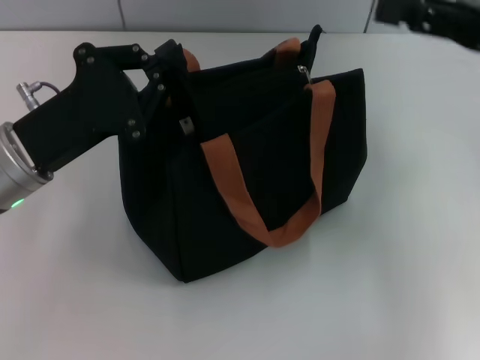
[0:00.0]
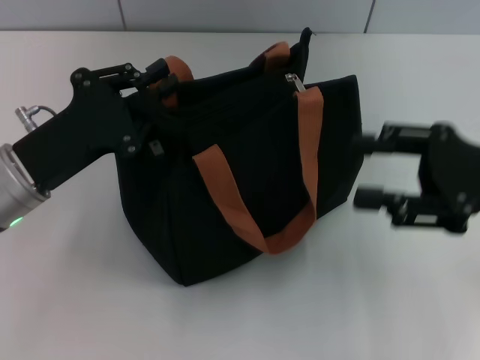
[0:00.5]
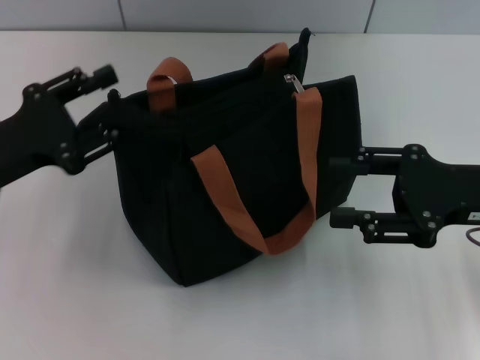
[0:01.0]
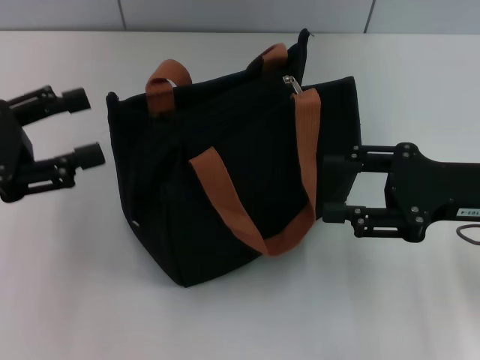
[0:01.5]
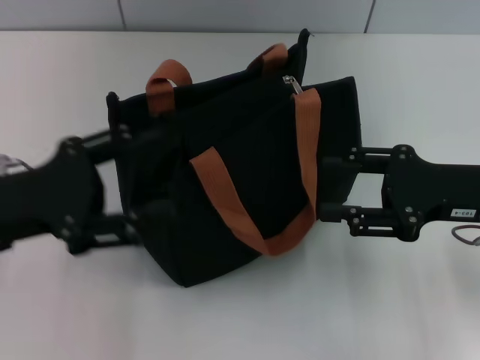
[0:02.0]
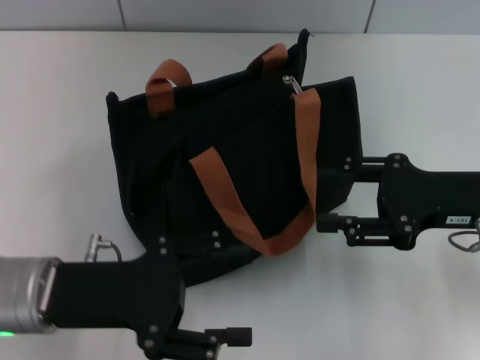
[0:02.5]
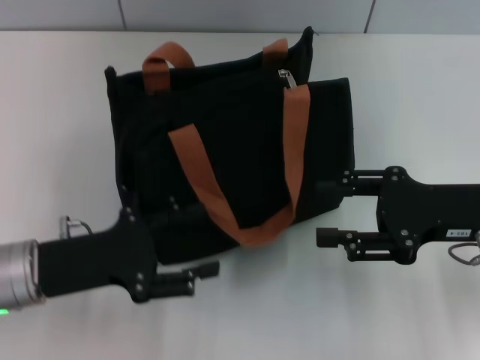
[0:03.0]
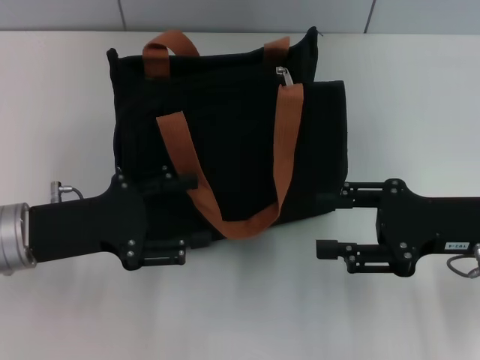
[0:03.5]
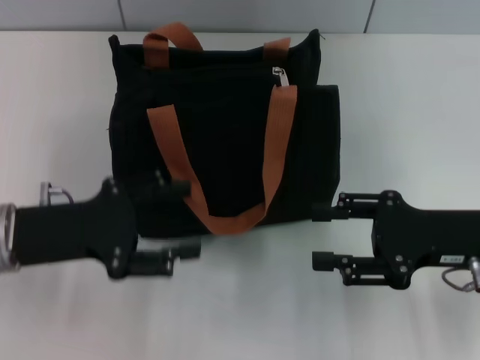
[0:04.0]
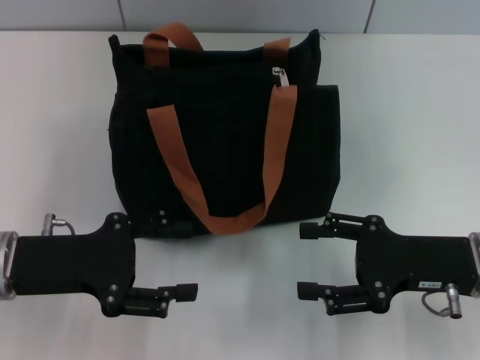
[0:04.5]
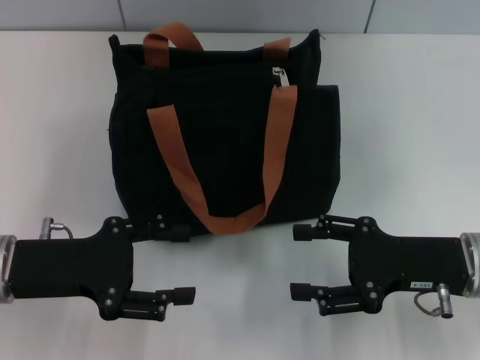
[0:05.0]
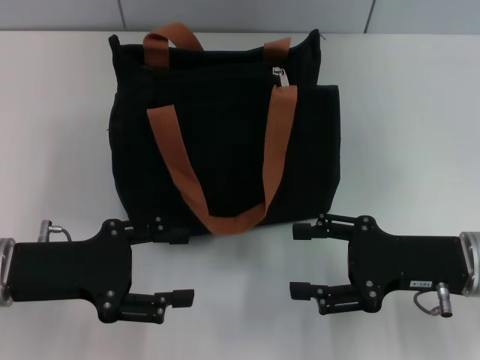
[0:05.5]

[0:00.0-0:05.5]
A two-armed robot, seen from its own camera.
0:00.0 to 0:02.0: The left gripper opens up. The right gripper goes some 10 cm downward, and opens.
0:02.0 to 0:03.5: The left gripper changes place by some 5 cm.

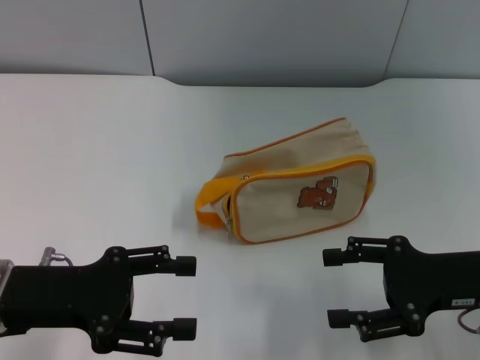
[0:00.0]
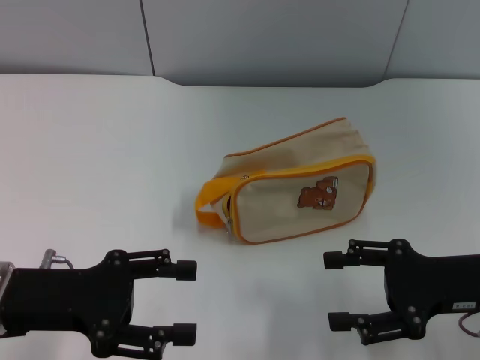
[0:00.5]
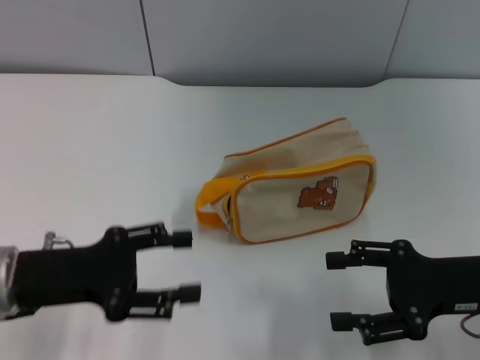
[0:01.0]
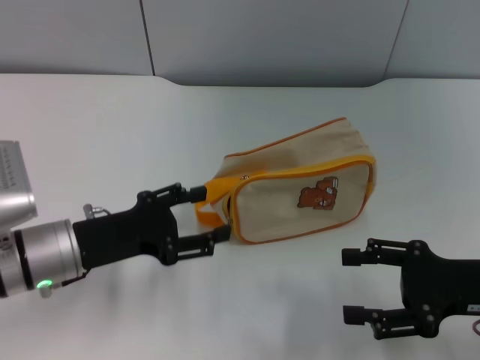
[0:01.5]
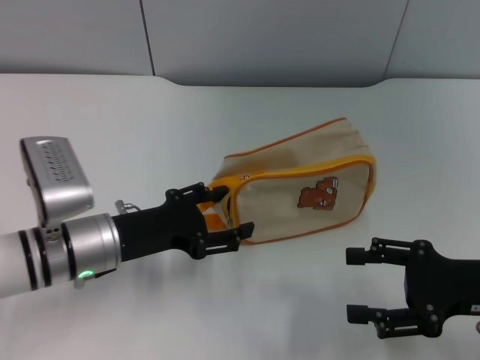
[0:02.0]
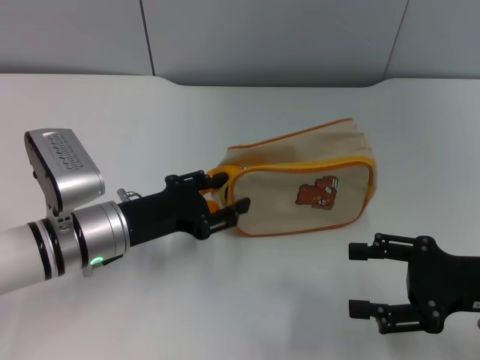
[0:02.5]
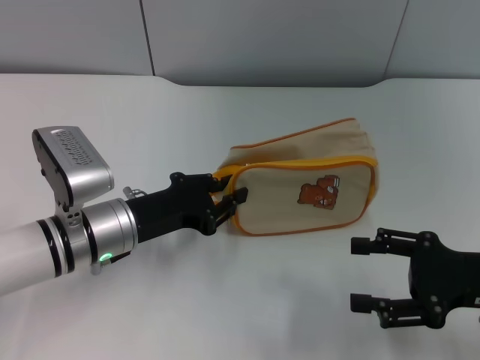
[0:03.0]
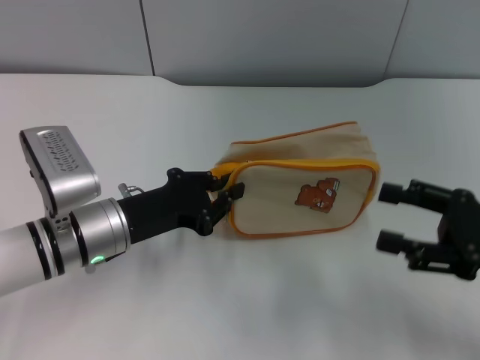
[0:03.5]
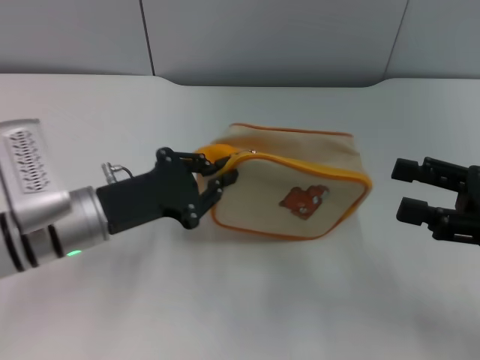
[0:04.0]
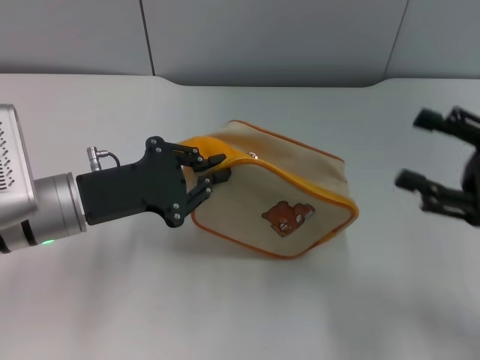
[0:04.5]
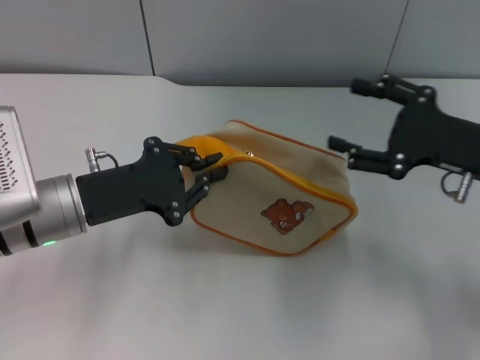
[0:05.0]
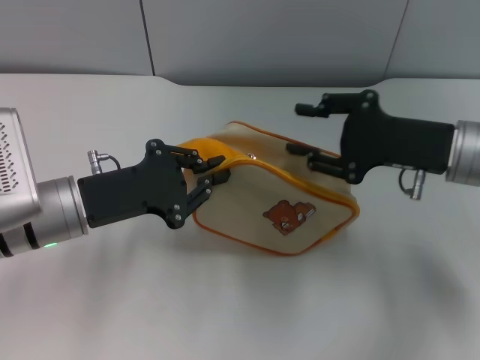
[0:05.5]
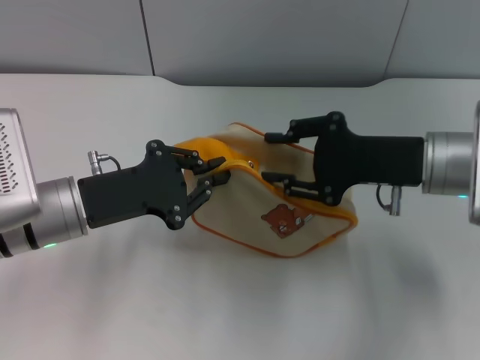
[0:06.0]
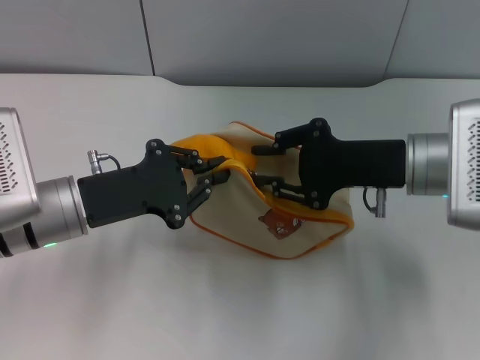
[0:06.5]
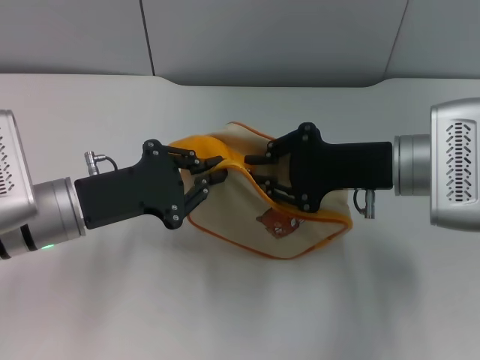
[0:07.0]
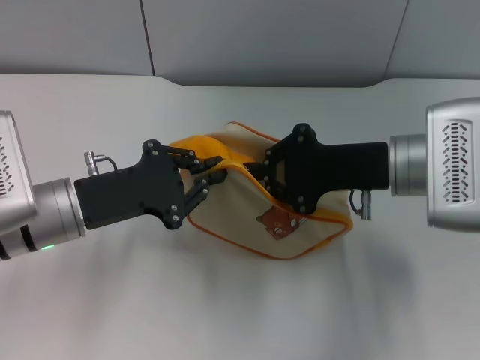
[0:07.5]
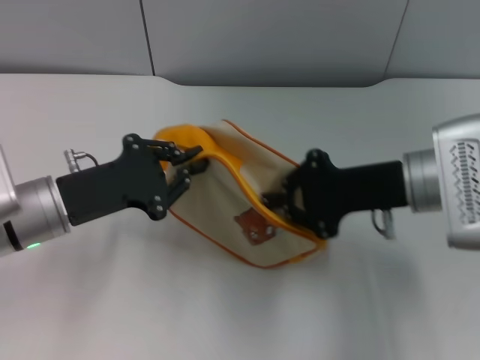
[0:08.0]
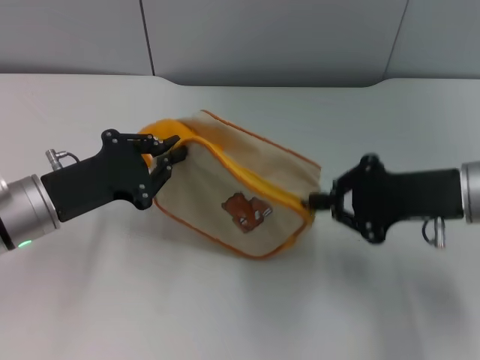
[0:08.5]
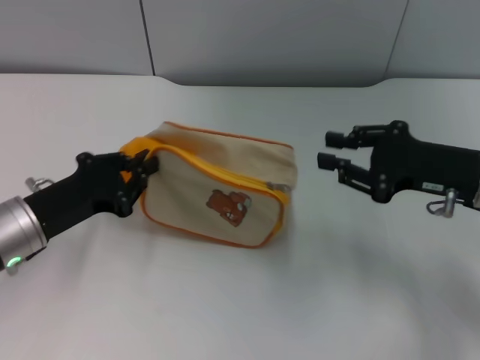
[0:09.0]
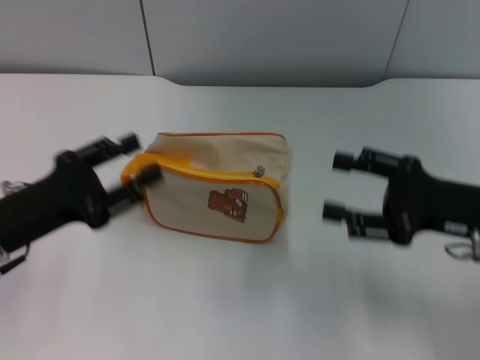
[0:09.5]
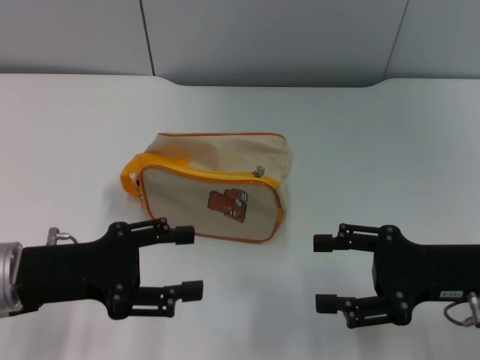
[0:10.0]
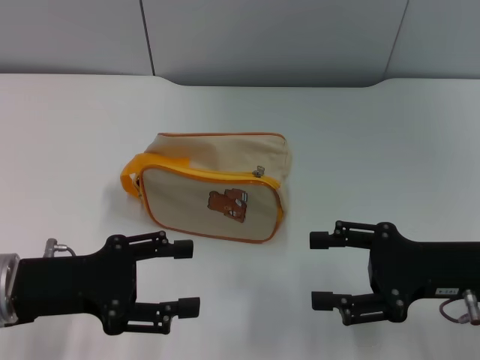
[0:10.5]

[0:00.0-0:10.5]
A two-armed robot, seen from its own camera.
Step, 0:00.0 to 0:04.0: Pick up the bag with left gripper.
Step, 0:04.5 to 0:08.5: Unzip the zipper of bag with right gripper.
Step, 0:09.0 to 0:09.5: Place the bag on the table with left gripper.
0:00.0 to 0:02.0: The left gripper moves to the right, forward and downward, about 10 cm.
0:02.0 to 0:04.0: The left gripper closes up, while the right gripper shifts by about 5 cm.
0:04.0 to 0:06.5: The right gripper heads to the left and forward, covering some 15 cm, and closes.
0:06.5 to 0:08.5: The right gripper ends up about 5 cm from where it was, and closes up.
0:08.5 to 0:10.5: Both grippers move backward, about 5 cm. The left gripper opens its fingers; the right gripper opens its fingers.
